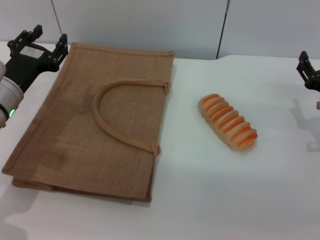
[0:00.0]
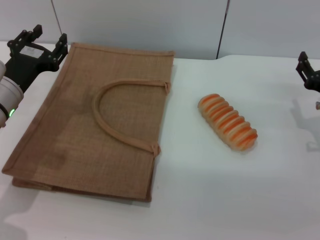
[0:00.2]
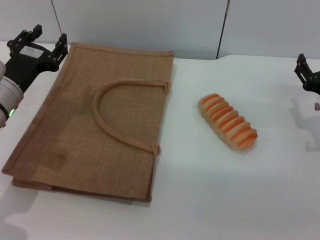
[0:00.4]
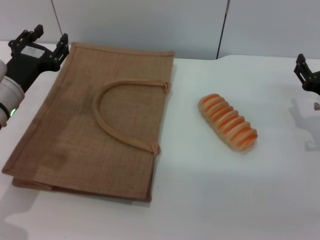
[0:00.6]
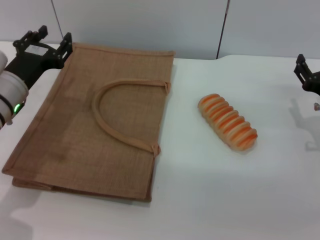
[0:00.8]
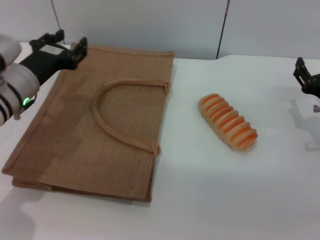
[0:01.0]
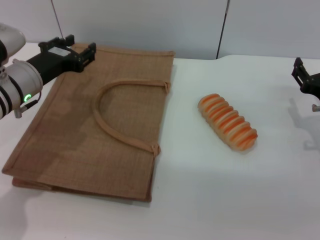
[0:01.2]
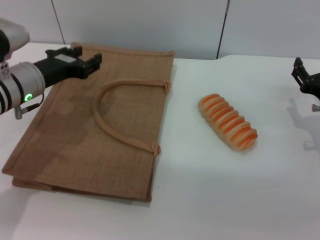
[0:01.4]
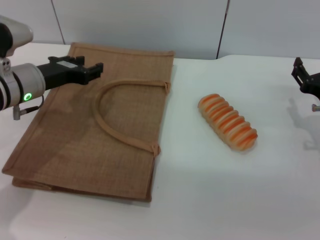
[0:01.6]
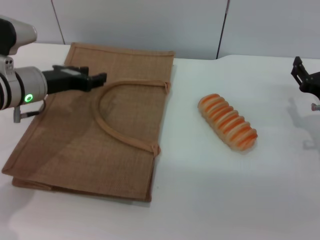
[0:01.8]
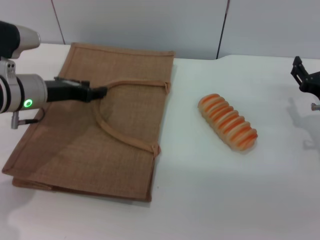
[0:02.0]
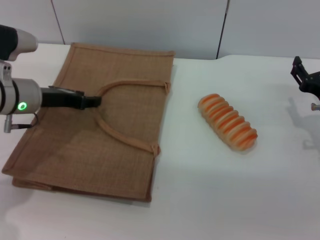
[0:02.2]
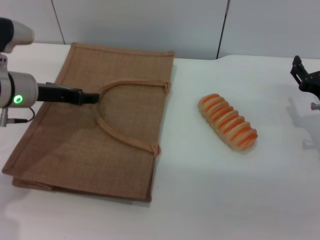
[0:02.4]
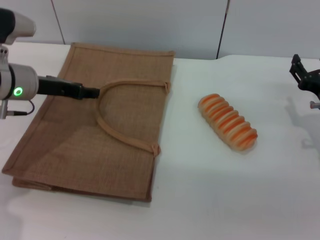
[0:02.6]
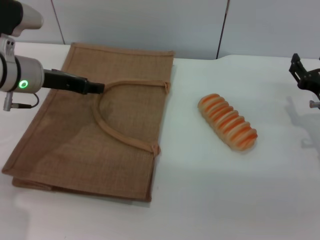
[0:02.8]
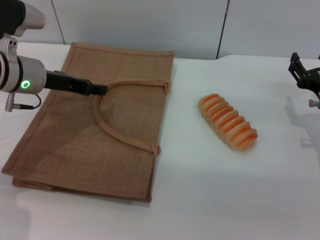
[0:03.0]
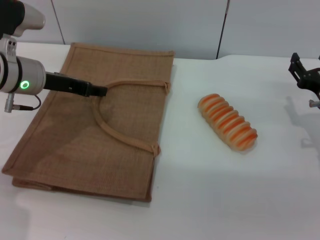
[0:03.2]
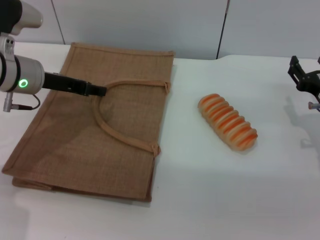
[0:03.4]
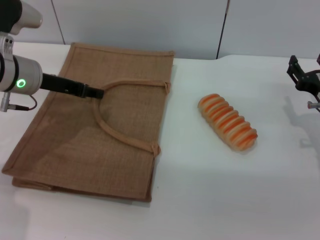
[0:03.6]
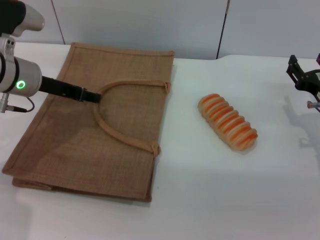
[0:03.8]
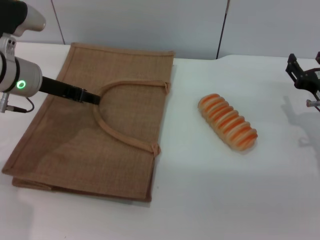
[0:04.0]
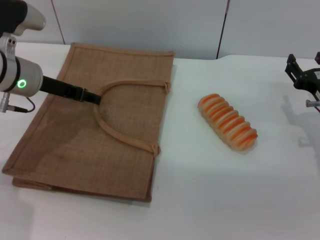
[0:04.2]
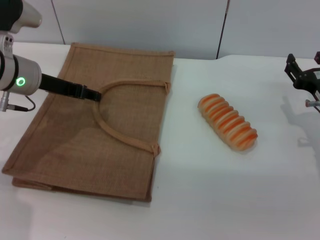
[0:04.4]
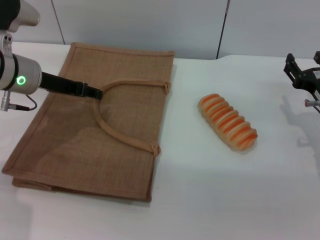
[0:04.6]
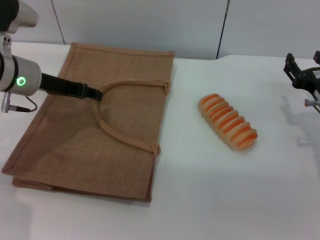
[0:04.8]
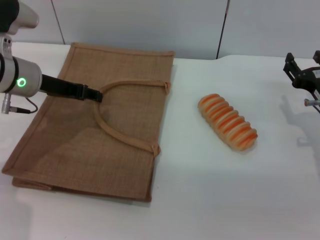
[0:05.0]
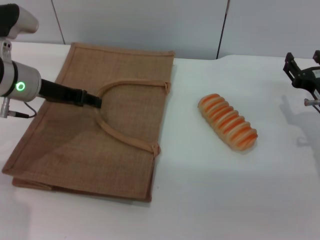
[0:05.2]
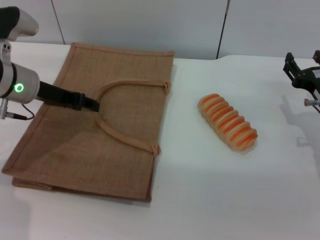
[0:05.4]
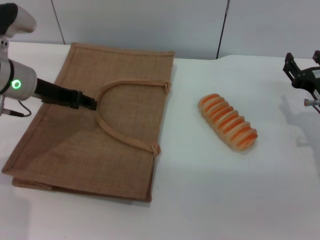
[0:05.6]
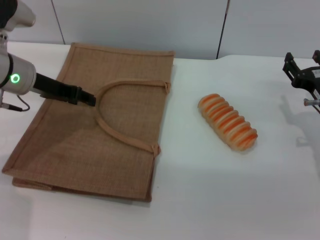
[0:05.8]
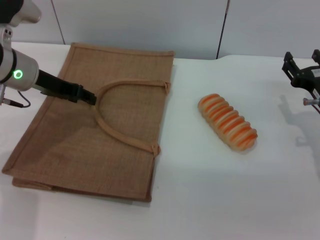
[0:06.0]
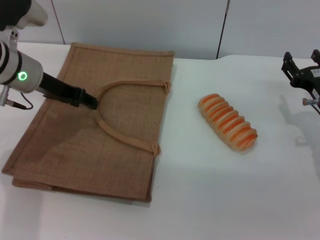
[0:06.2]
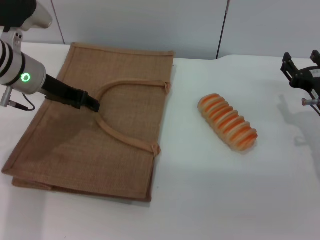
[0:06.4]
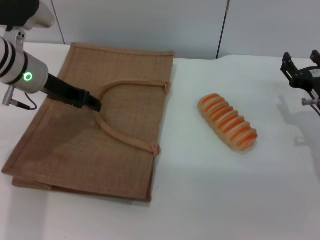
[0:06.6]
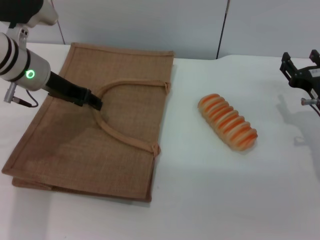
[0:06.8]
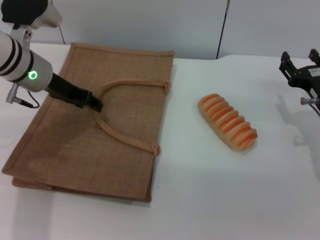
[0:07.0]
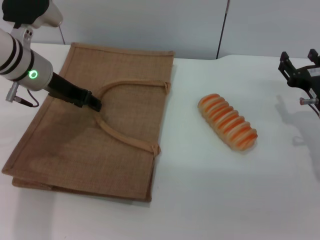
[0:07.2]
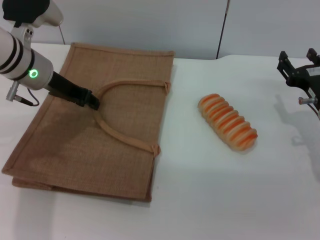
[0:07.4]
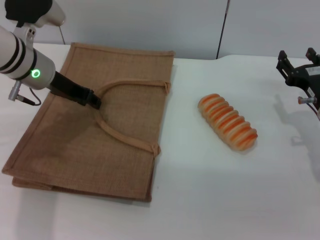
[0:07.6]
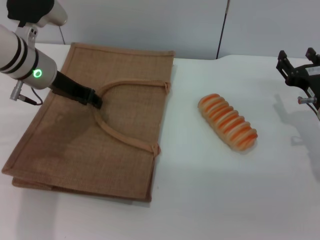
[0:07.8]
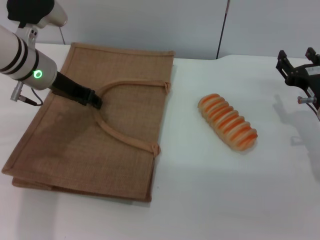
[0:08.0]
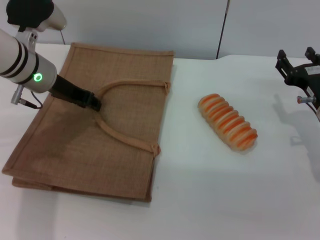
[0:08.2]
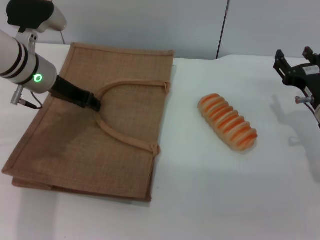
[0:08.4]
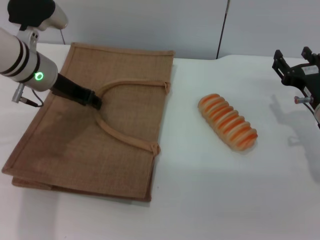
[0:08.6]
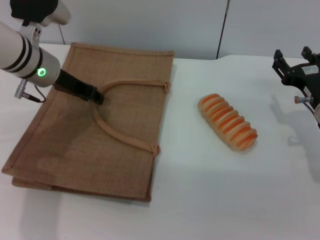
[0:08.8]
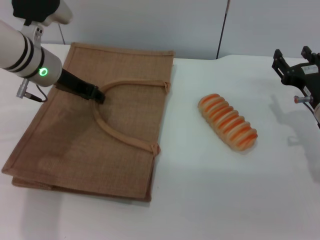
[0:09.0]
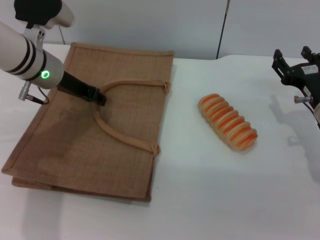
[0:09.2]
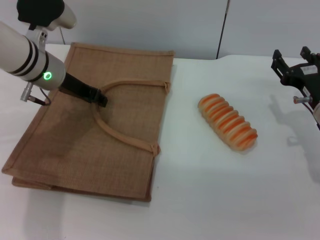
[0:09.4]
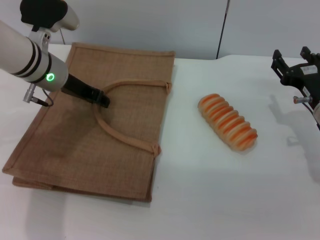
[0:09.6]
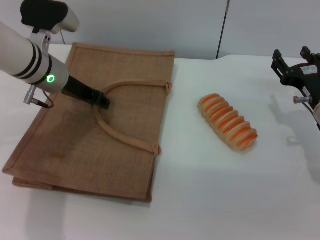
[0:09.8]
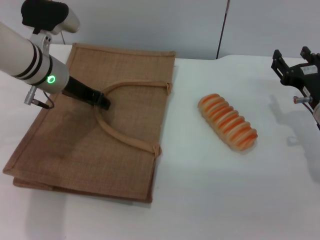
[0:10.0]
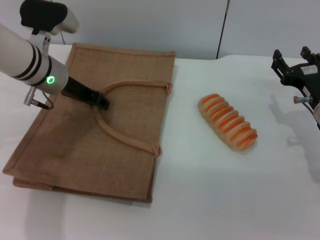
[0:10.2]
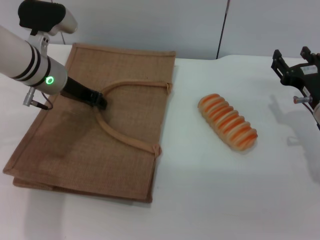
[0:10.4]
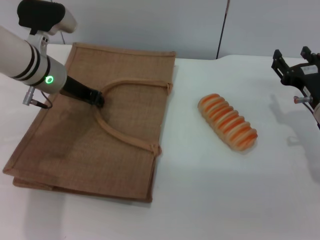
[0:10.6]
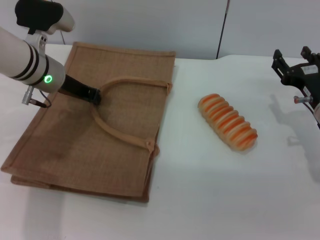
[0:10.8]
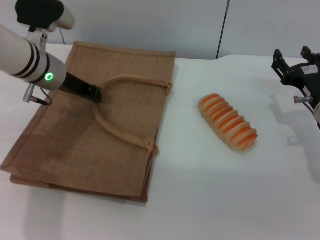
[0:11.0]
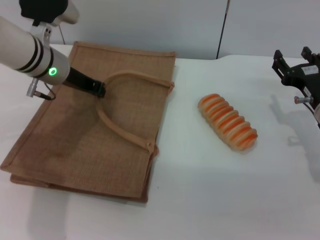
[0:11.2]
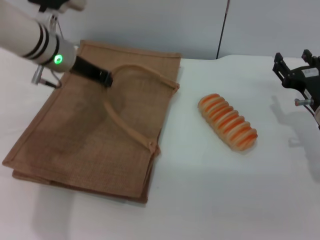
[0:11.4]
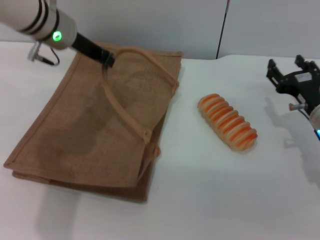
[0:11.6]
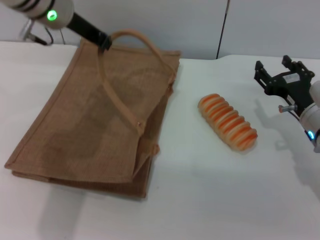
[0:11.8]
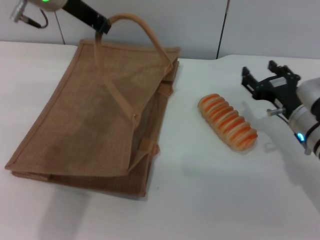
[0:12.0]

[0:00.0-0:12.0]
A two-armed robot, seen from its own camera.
Task of the whole recording: pick up the bread from the table and place it in the brown handbag.
Step, 0:00.0 to 0:11.4: Lift the woven bag with the left gripper to open it.
0:03.0 to 0:07.6: The grippers make only small movements.
0:07.6 to 0:09.0: The two grippers keep their place.
0:09.0 to 0:10.4: There are only small adjustments of the grippers.
0:10.4 to 0:12.0: The left gripper shifts roughly 15 cm upward.

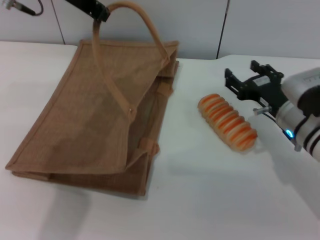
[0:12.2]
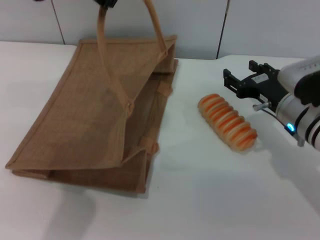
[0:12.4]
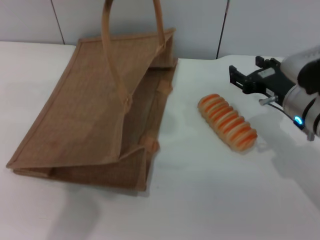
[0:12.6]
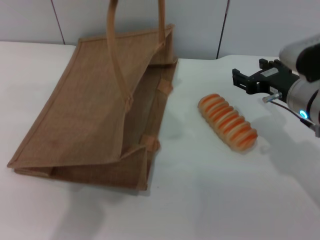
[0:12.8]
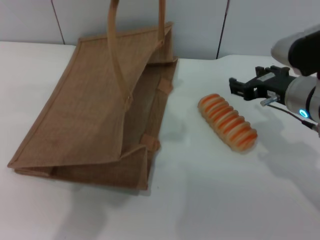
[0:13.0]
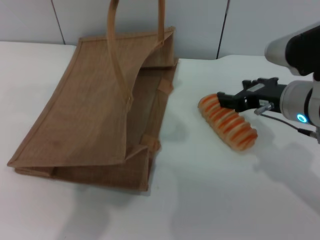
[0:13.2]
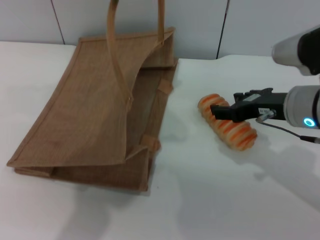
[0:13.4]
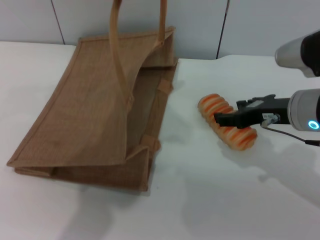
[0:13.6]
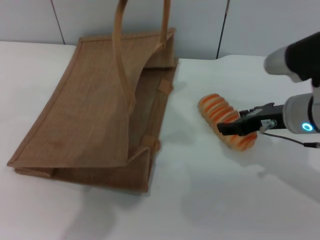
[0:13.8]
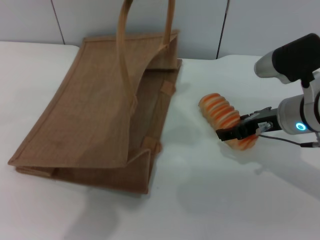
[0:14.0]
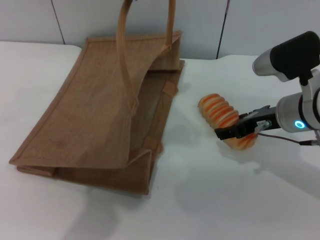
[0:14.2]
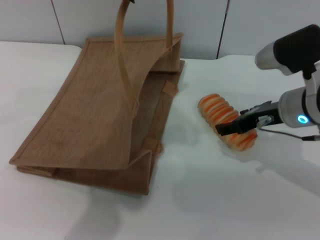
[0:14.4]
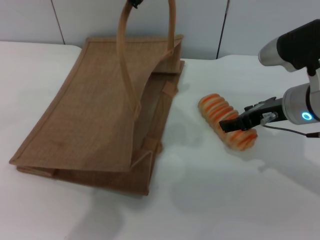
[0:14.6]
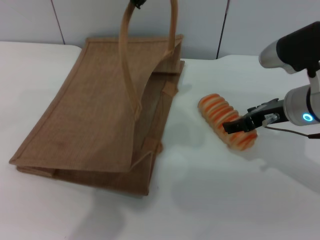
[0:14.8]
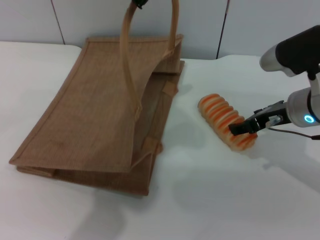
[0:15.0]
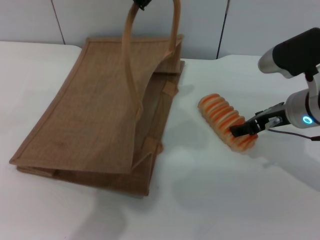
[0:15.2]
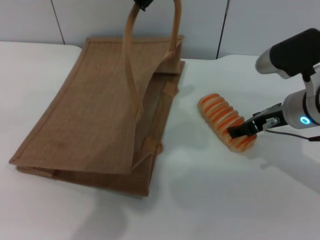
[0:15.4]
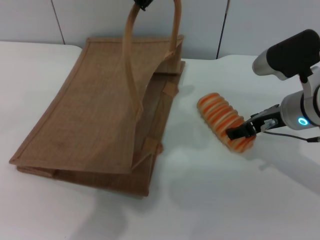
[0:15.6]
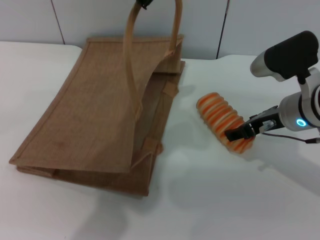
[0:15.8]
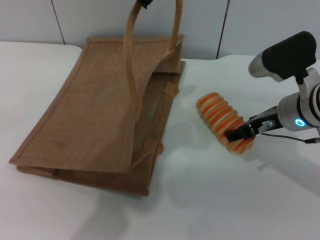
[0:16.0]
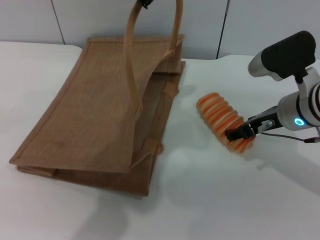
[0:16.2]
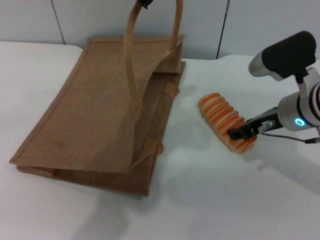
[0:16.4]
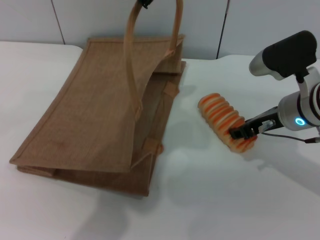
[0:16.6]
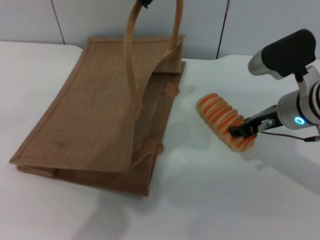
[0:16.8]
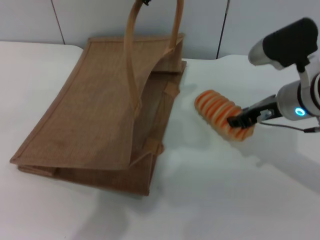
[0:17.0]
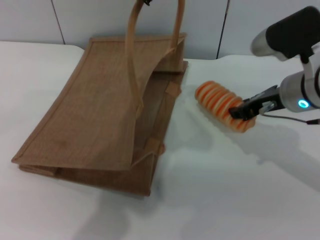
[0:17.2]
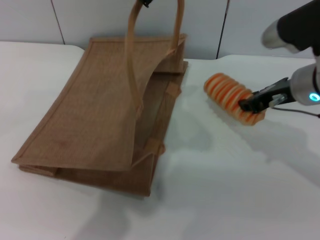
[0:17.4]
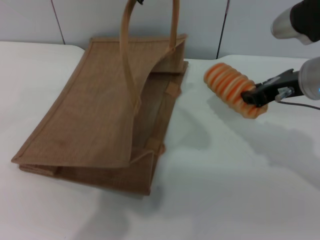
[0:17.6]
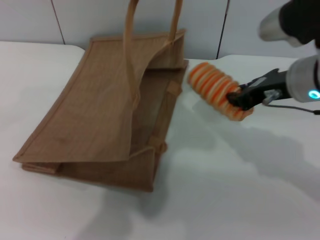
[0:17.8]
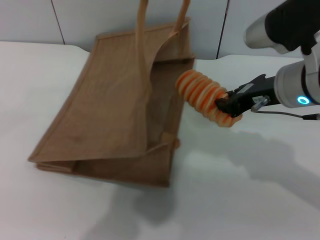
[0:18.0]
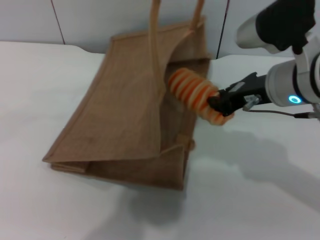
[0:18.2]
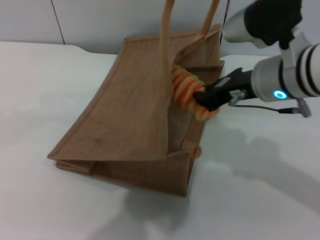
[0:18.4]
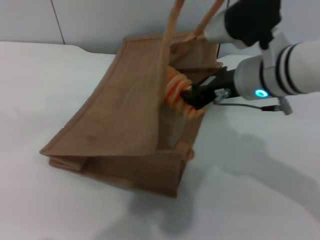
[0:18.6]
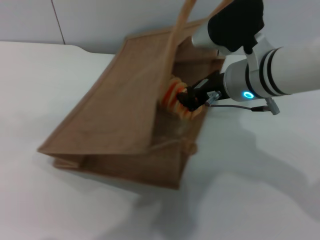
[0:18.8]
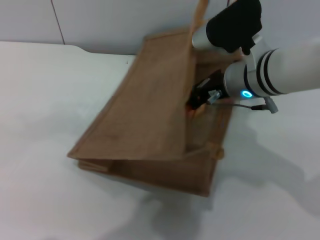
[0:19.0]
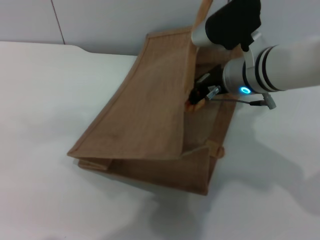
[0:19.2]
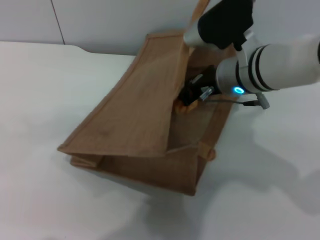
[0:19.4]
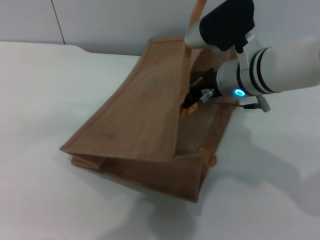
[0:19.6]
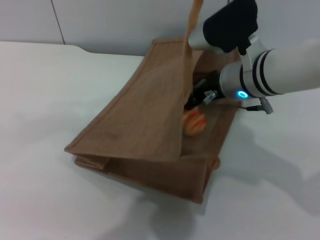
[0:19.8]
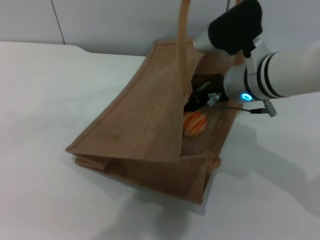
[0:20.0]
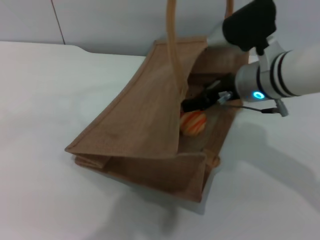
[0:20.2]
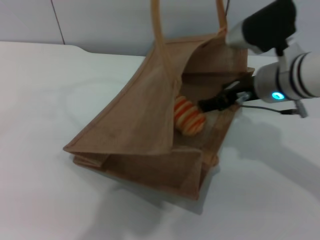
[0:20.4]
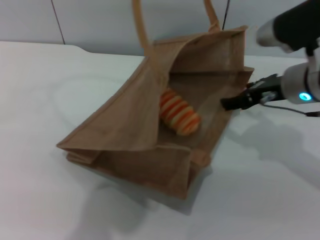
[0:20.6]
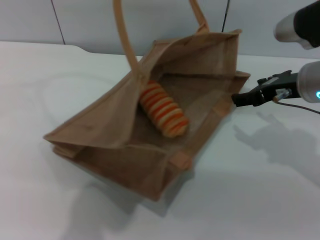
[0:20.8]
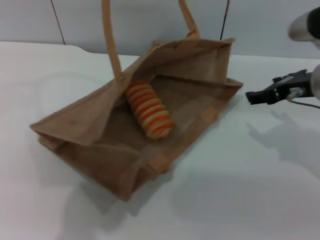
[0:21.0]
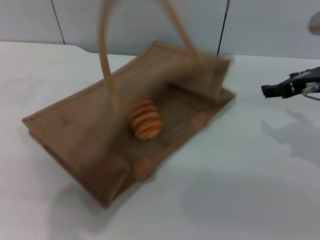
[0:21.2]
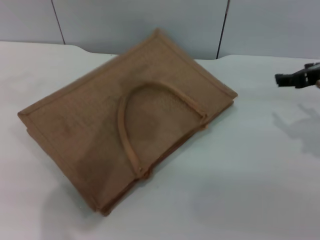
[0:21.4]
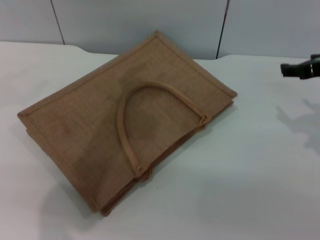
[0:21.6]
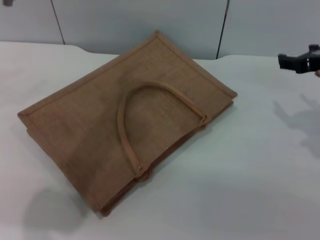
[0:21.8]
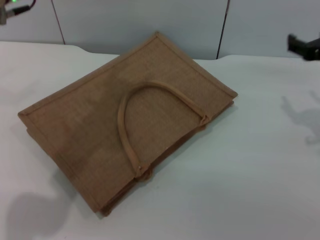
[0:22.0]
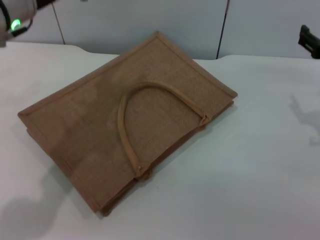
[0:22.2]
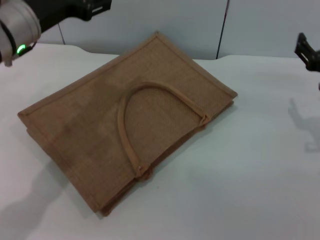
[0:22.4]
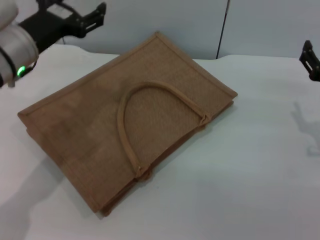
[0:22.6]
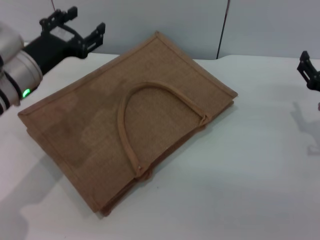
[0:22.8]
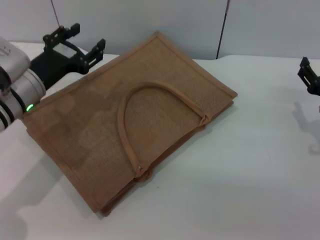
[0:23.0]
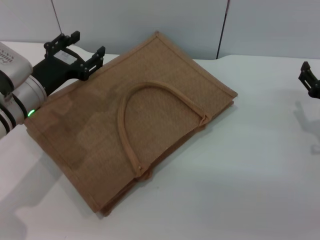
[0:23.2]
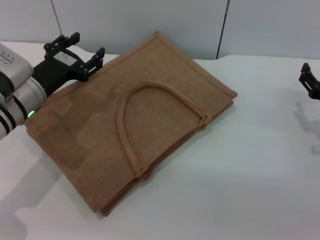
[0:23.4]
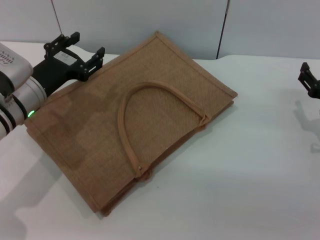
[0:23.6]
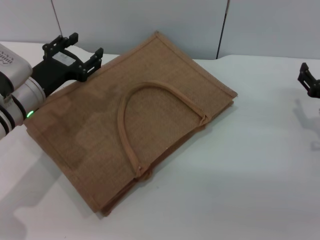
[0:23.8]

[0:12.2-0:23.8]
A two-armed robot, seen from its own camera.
Task of the whole recording: pick up the bread from the table and place it in the brown handbag.
Step, 0:12.2 to 0:17.6: Pick up the bread with the right gripper.
Step, 0:17.8 to 0:21.0: Place the bread into the woven bag with the right gripper.
Step, 0:21.2 to 0:22.6: Lower the woven bag with the left gripper to close it.
0:12.2 to 0:13.6: The right gripper goes approximately 10 cm upward; the left gripper goes roughly 5 cm upward.
0:13.6 to 0:15.0: The grippers move only a little.
0:15.0 to 0:16.6: Both grippers stay put.
0:16.6 to 0:18.0: The right gripper travels upward by roughly 5 cm, and closes up.
0:18.0 to 0:19.4: The right gripper goes roughly 5 cm to the left, while the left gripper is displaced to the right by approximately 5 cm.
0:19.4 to 0:21.0: The right gripper travels to the right by approximately 10 cm, and opens; the left gripper shifts some 10 cm to the left.
0:21.0 to 0:22.4: The right gripper moves downward, some 5 cm, while the left gripper goes approximately 15 cm downward and to the left, and opens its fingers.
0:22.4 to 0:23.8: The right gripper goes roughly 5 cm downward; the left gripper moves downward, some 10 cm.
